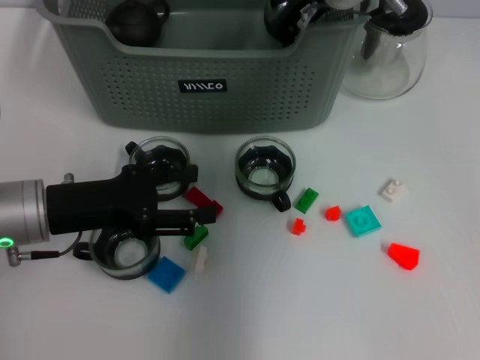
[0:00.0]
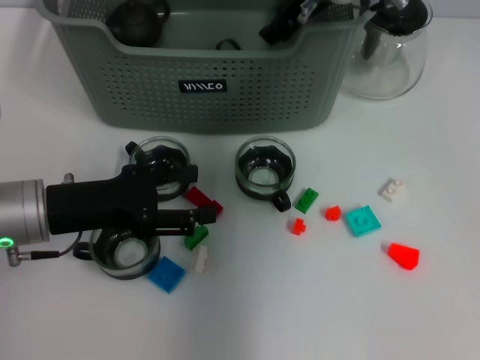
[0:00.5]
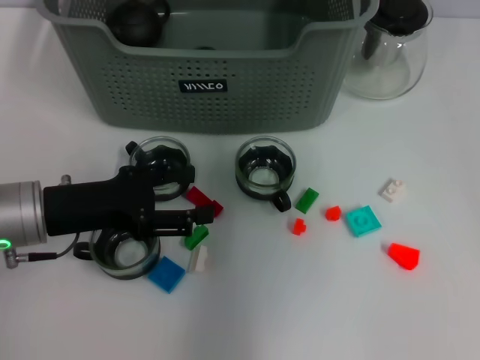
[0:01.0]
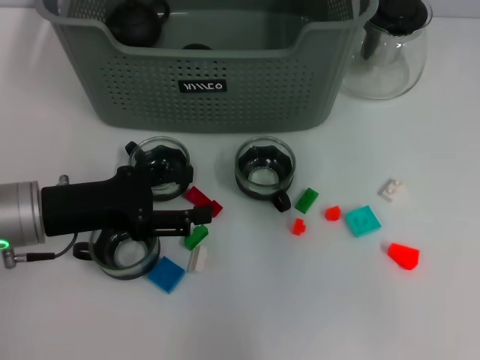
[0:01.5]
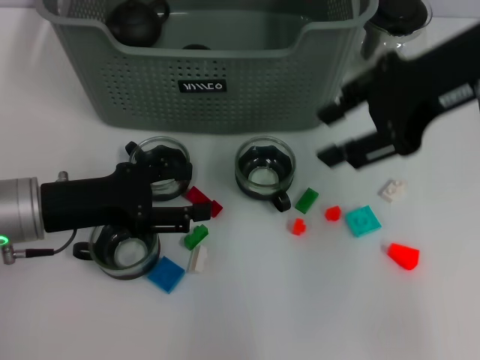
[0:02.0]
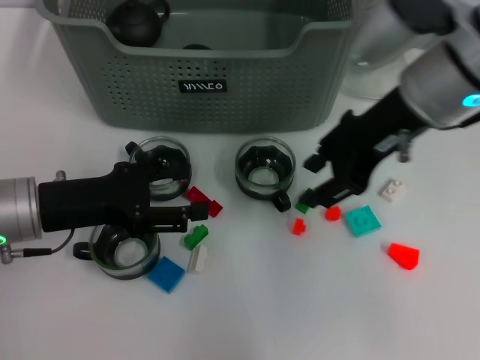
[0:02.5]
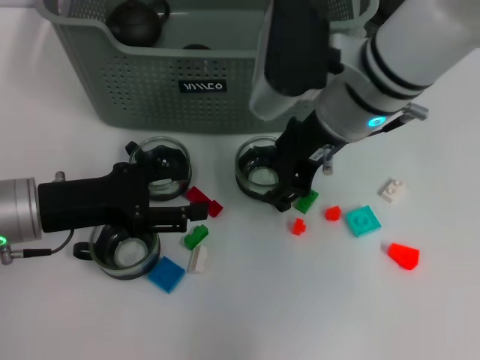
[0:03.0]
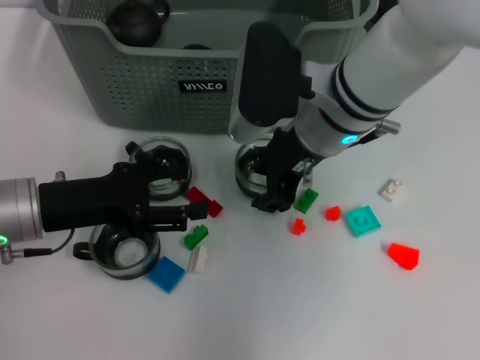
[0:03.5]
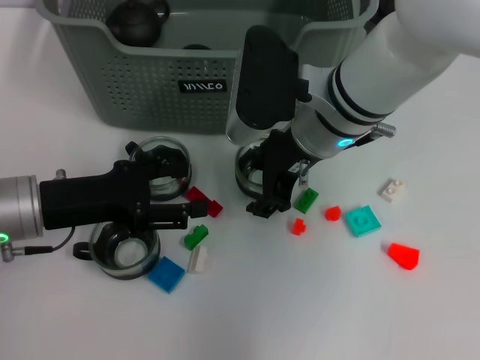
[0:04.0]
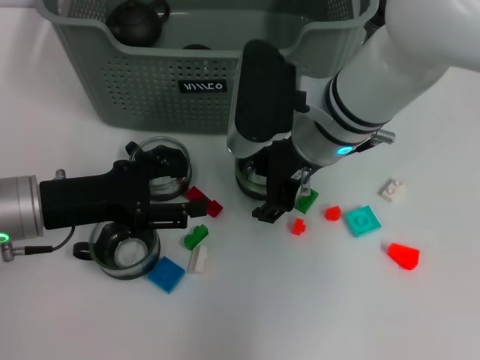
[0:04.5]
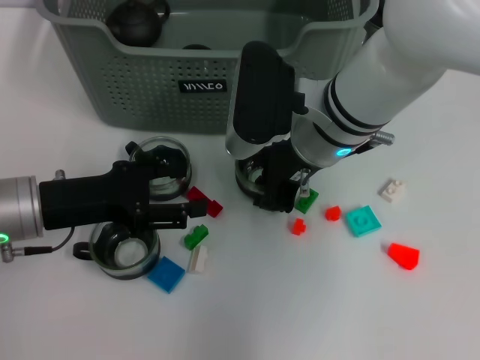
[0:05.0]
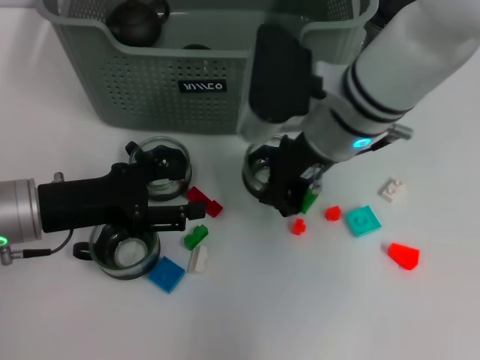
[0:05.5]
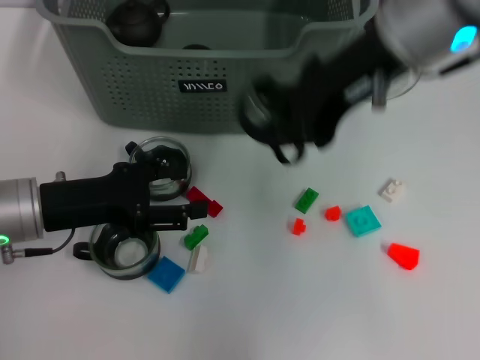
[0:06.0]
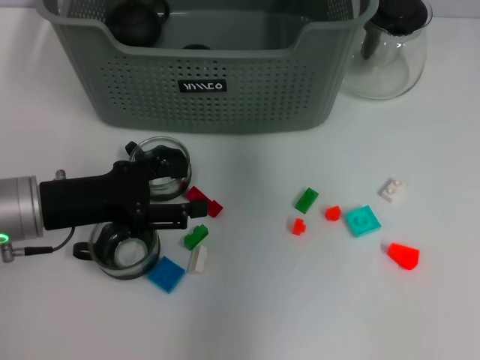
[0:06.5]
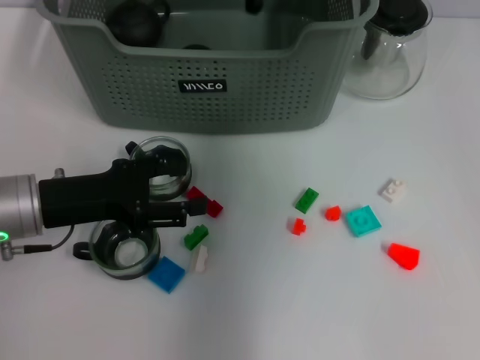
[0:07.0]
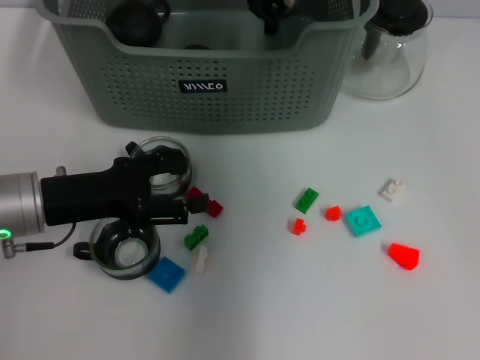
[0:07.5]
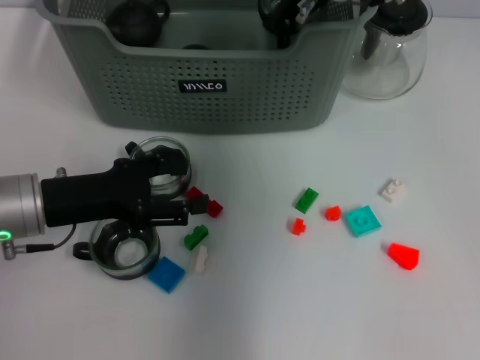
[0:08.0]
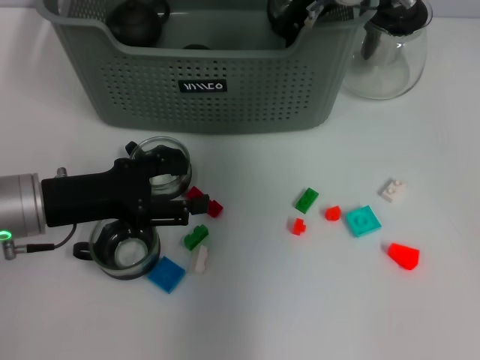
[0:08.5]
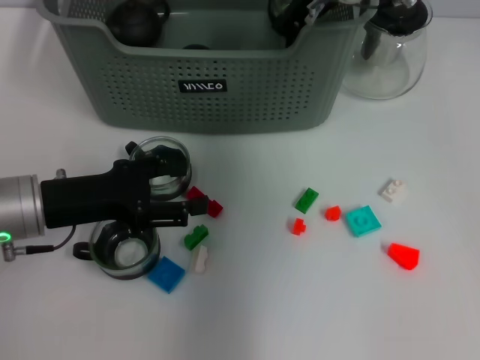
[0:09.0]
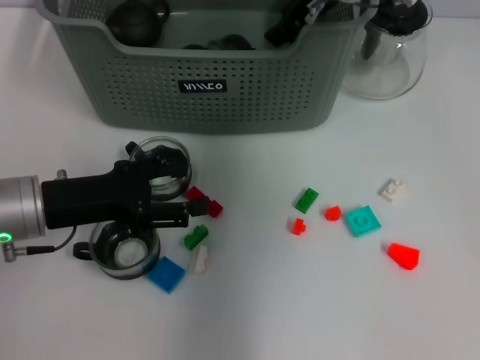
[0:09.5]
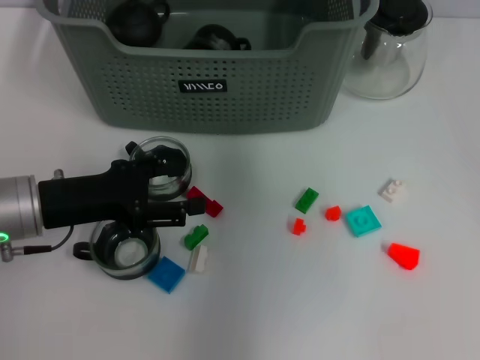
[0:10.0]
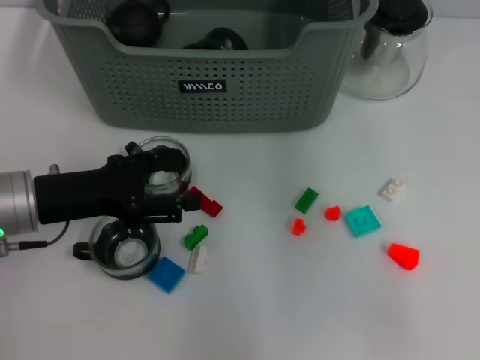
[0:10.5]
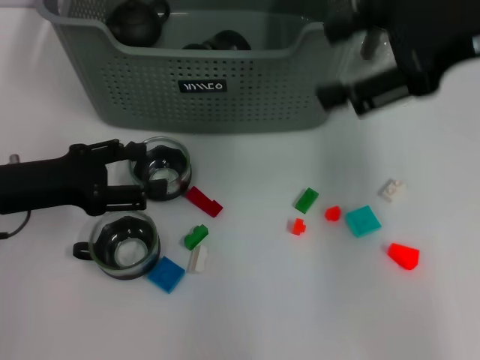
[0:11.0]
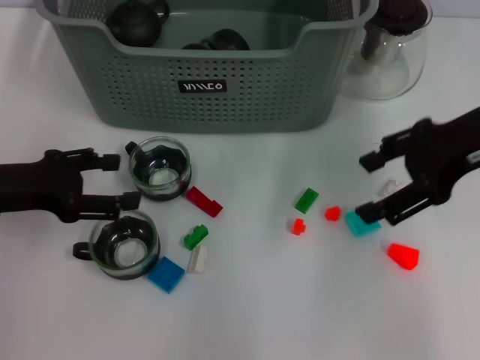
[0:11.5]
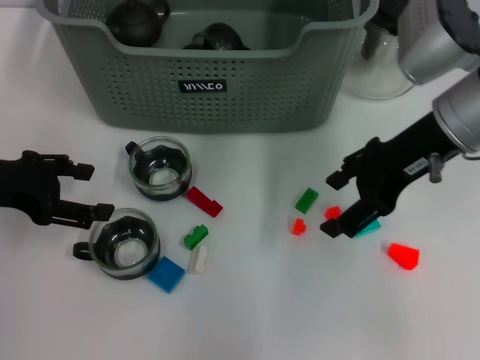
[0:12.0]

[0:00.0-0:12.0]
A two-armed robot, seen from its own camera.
Task of the whole recording: pick up the teacup on the table and place it into the storage bin, pick up the block on the table and place it into the storage bin.
Step, 0:01.0 to 0:05.0: Grasp the cup with right gripper.
Step, 0:05.5 to 0:10.0: Place the cup in the storage box with right gripper.
0:00.0 to 0:02.0: The right gripper is displaced backward, to the right and upward by some 20 cm, and opens up.
0:02.0 to 0:04.0: The right gripper heads to the left and downward, covering roughly 20 cm.
0:04.0 to 0:06.0: The right gripper goes roughly 15 cm upward, and closes up.
0:06.0 to 0:08.0: The right gripper heads forward and downward, covering some 15 cm.
0:08.0 to 0:10.0: The right gripper goes about 5 cm upward, and opens its fingers.
0:10.0 to 0:12.0: The left gripper is displaced to the left and upward by roughly 10 cm. Meanwhile the right gripper moves downward, backward and to the right, about 15 cm.

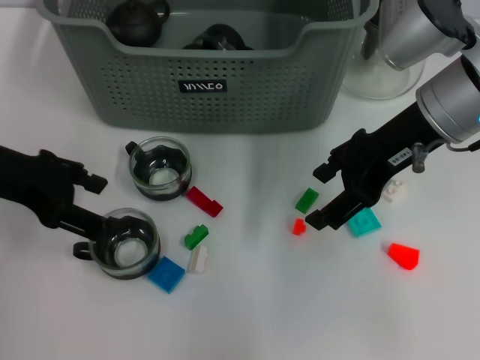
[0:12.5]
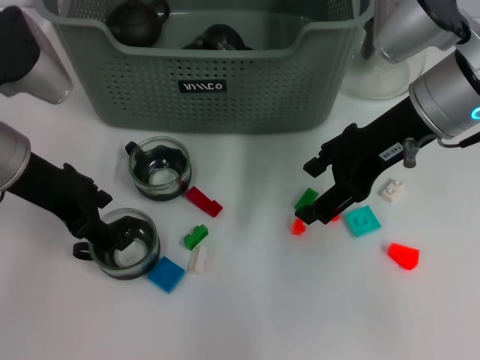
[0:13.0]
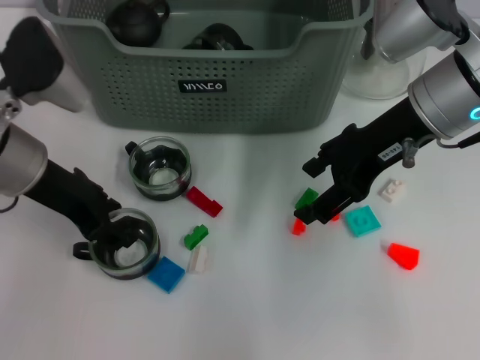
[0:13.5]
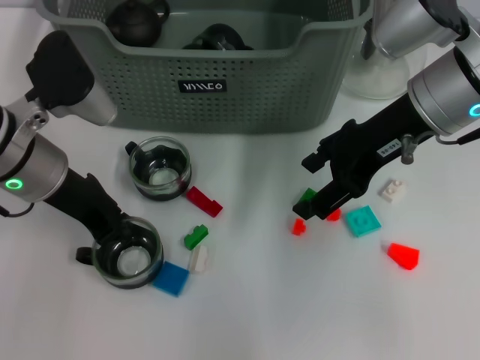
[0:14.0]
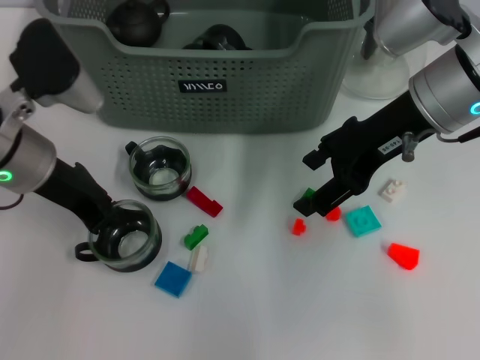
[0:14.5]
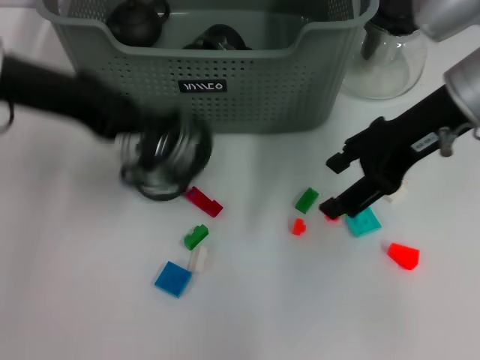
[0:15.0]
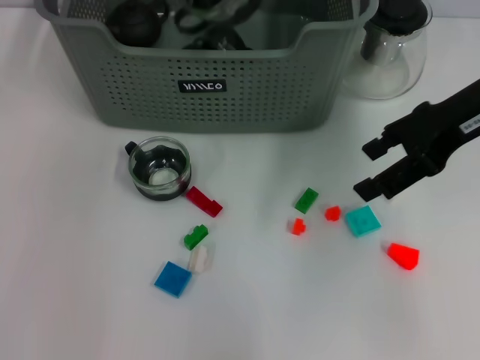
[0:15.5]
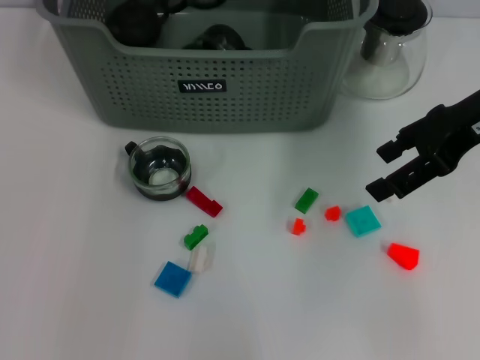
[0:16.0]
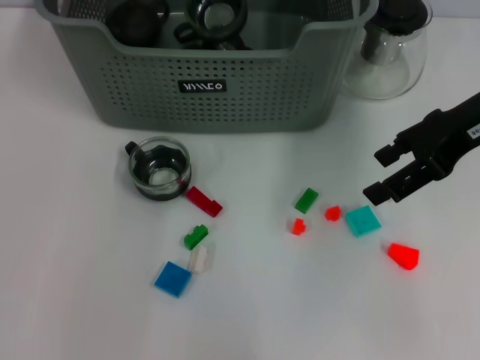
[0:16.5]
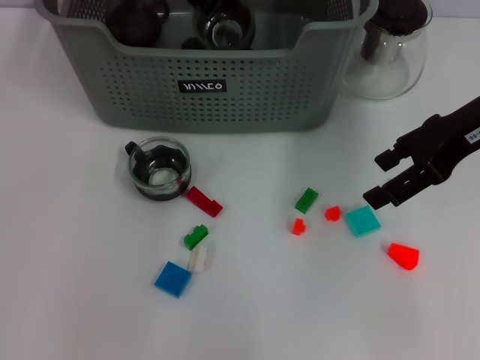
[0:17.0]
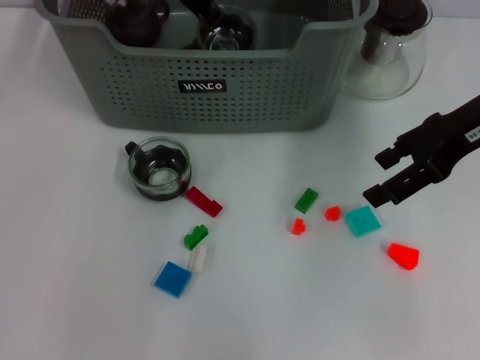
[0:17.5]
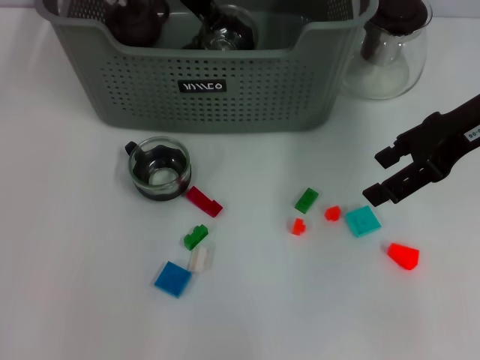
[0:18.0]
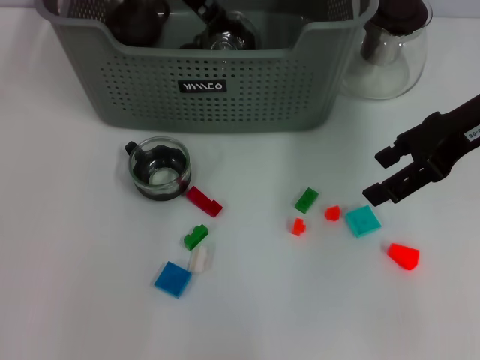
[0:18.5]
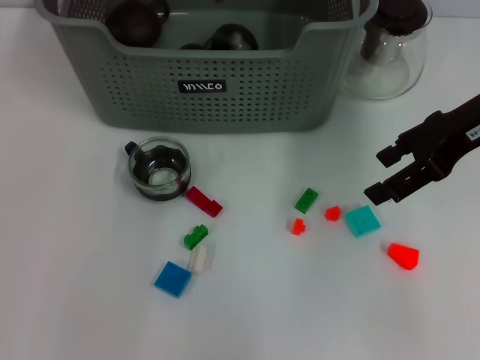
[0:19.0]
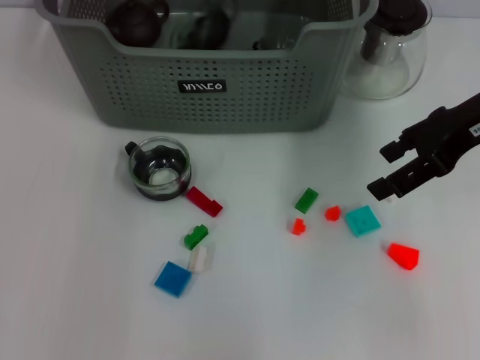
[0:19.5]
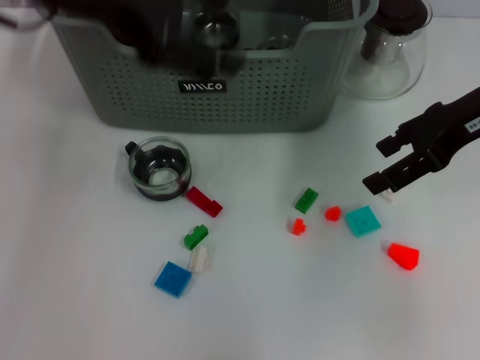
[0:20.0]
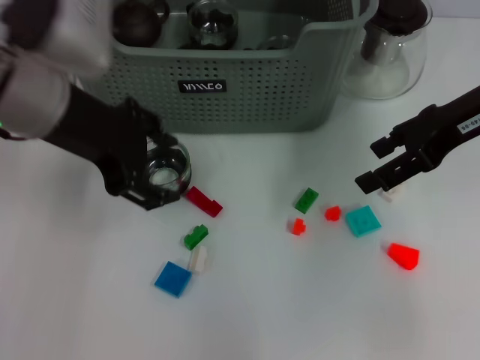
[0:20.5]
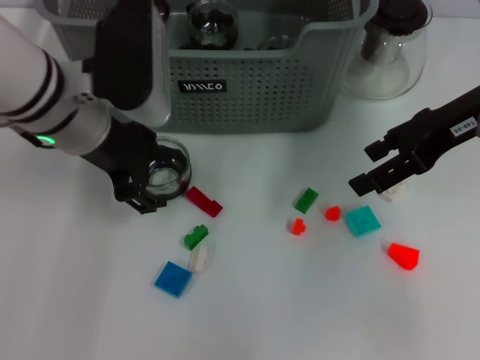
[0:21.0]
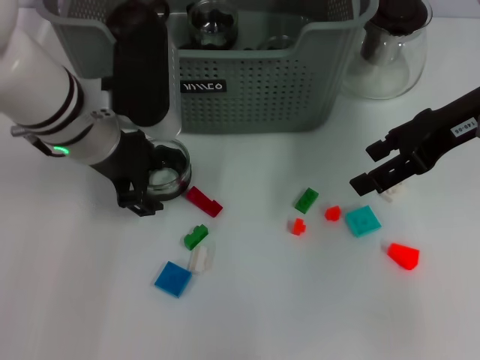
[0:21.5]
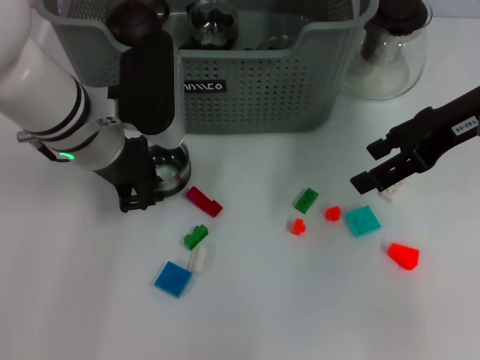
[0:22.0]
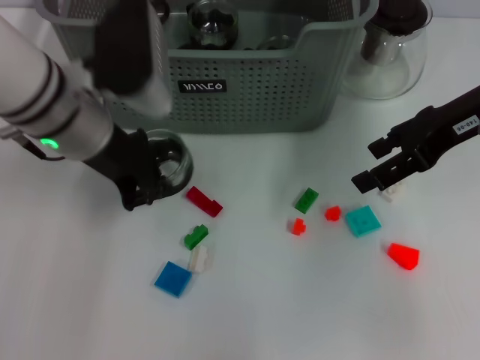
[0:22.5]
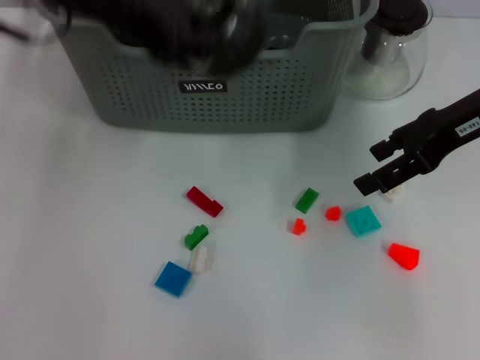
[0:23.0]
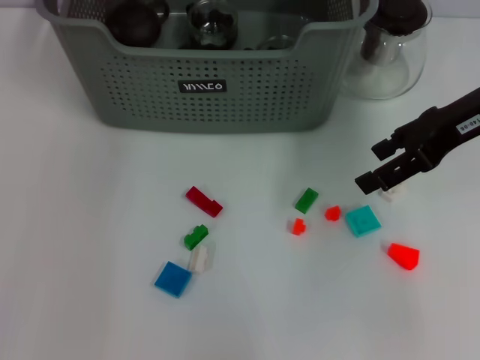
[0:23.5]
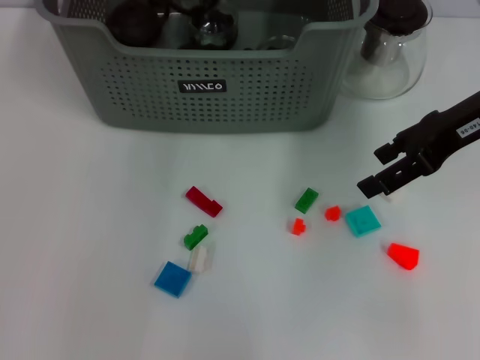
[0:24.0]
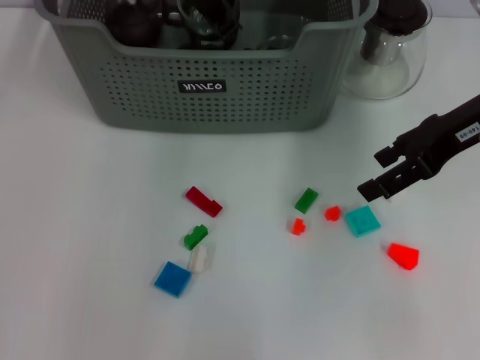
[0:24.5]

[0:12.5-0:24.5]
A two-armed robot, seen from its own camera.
Task of the whole recording: pick up the teacup on the table and place it into the storage bin, pick up the block on the table and place it into the storage bin.
Step, 0:14.5 to 0:19.5: Place the cup in the storage box with left gripper.
Step, 0:20.0 to 0:22.0: Grasp the cup with left gripper.
0:12.5 to 0:14.5: The left gripper travels to the right by approximately 5 cm, and closes its fingers.
0:14.5 to 0:16.5: The right gripper is displaced to the right by approximately 5 cm. Meanwhile the left gripper moves forward, to the right and upward, about 20 cm.
0:16.5 to 0:18.5: The left gripper opens.
0:18.5 to 0:20.5: The left gripper goes roughly 20 cm backward and to the left, and opens its fingers.
0:20.5 to 0:22.5: The left gripper is displaced downward by approximately 5 cm, and closes up.
0:22.5 to 0:24.5: The left gripper travels forward and to the right by approximately 15 cm.

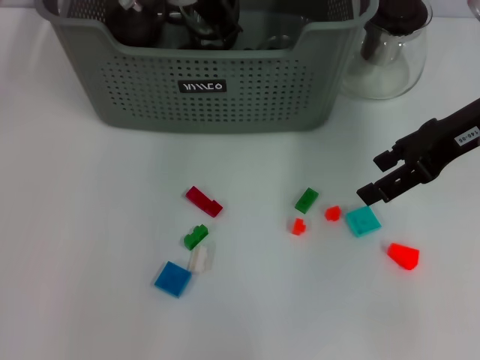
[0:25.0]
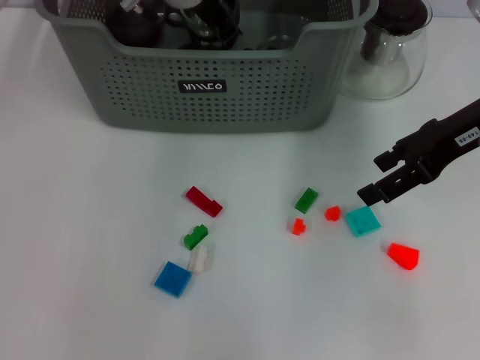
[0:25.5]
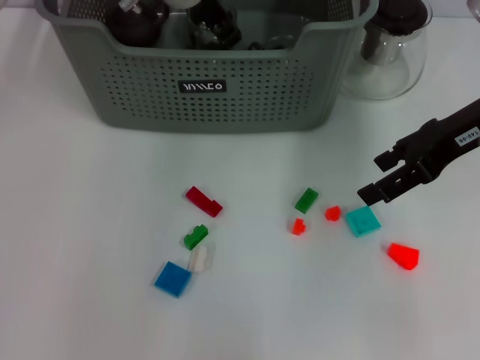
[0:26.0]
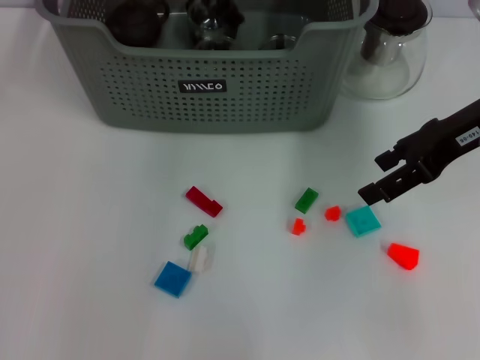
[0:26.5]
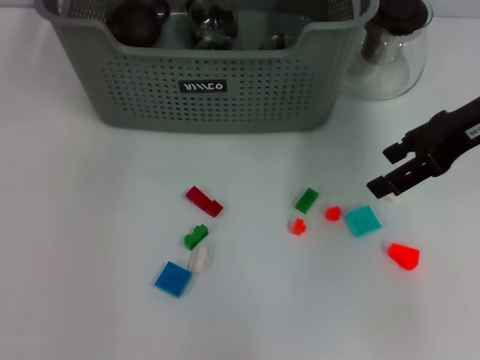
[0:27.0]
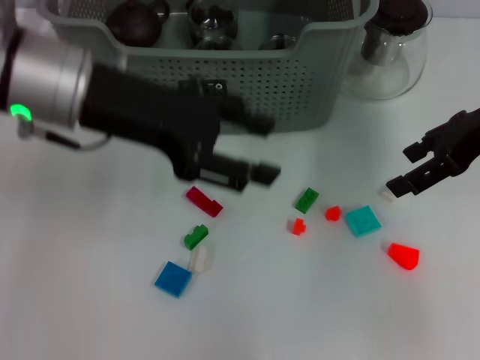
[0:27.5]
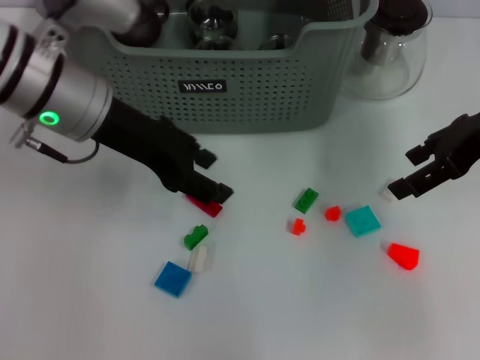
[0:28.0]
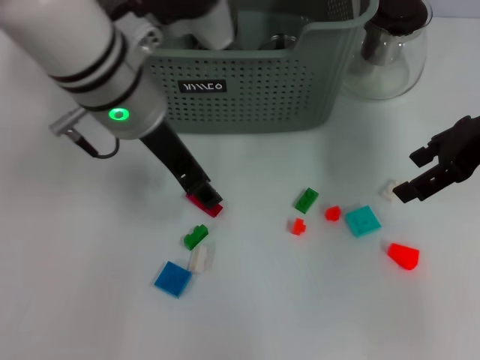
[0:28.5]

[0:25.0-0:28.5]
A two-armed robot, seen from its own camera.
Task of the whole recording: pick up the teacup on the table and place it into the storage bin, pick up the block on the table and place it into the storage bin.
0:25.0 to 0:27.0: The left gripper heads upward, to the left and backward, covering roughly 10 cm, and opens up.
0:27.0 to 0:28.5: The left gripper shifts some 10 cm downward and backward.
